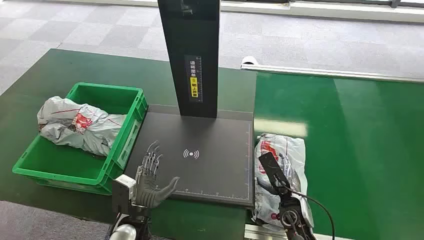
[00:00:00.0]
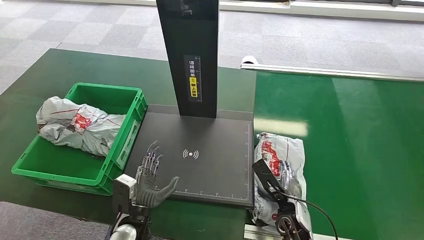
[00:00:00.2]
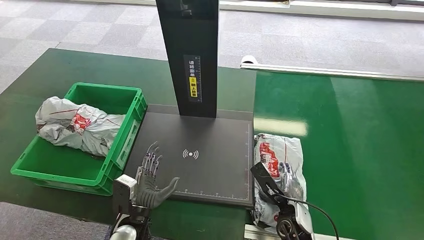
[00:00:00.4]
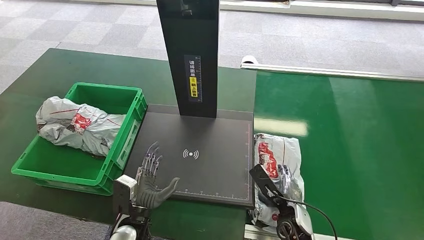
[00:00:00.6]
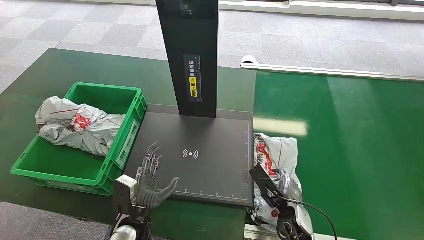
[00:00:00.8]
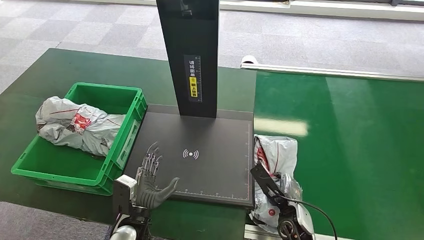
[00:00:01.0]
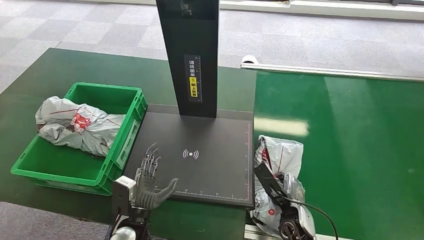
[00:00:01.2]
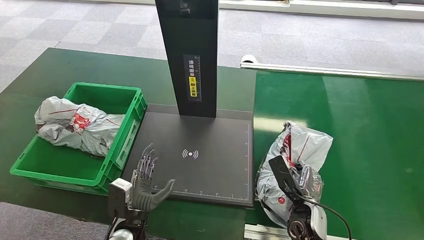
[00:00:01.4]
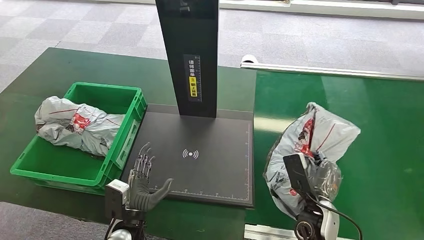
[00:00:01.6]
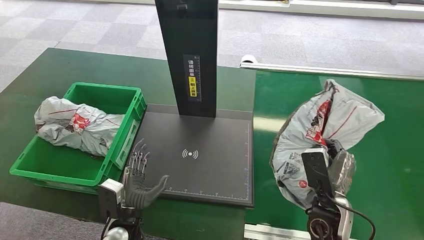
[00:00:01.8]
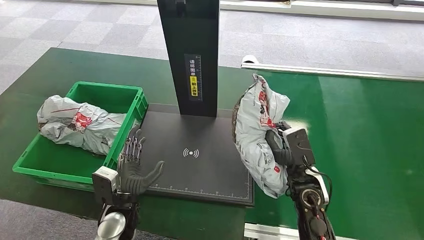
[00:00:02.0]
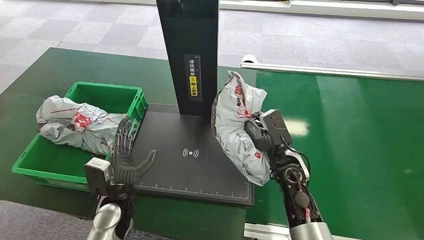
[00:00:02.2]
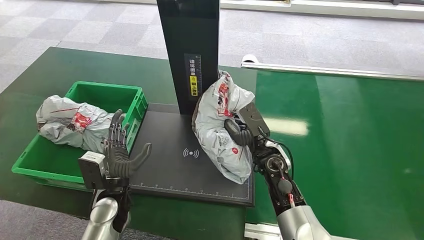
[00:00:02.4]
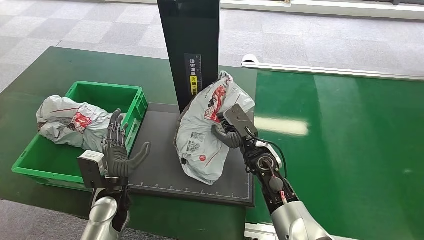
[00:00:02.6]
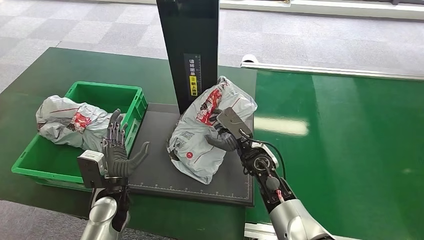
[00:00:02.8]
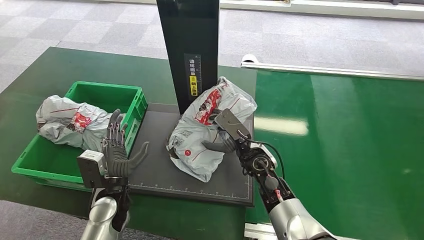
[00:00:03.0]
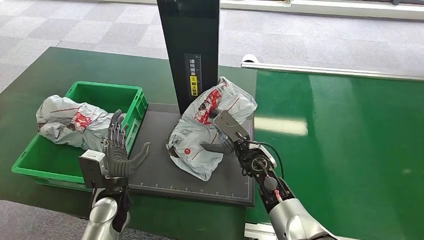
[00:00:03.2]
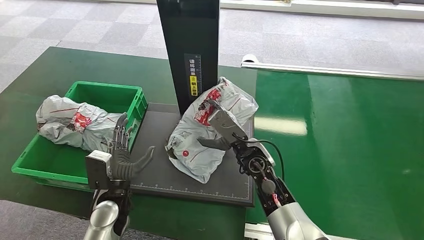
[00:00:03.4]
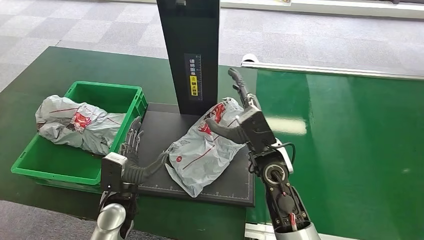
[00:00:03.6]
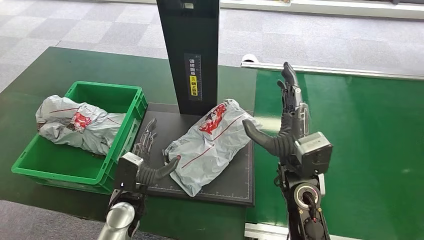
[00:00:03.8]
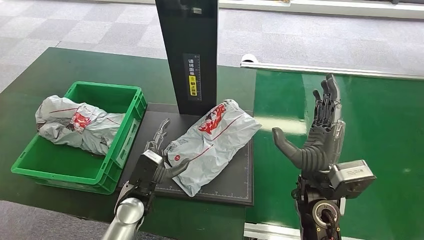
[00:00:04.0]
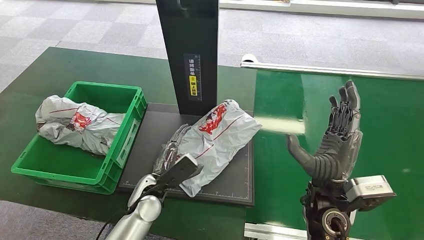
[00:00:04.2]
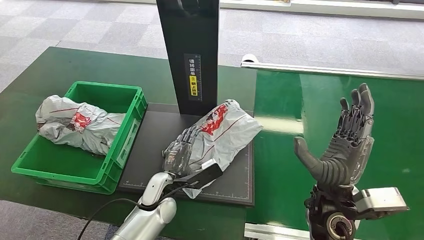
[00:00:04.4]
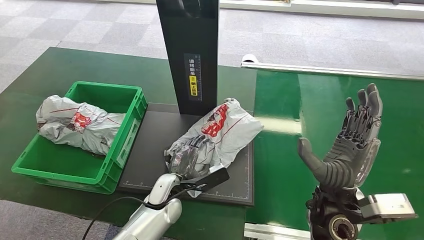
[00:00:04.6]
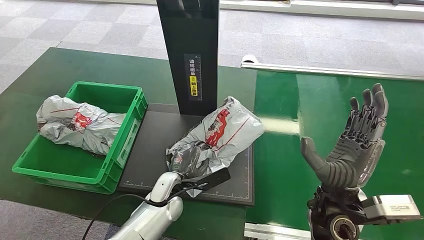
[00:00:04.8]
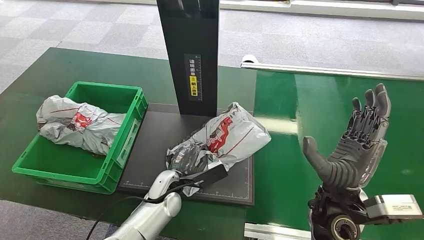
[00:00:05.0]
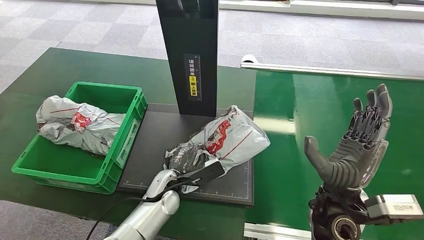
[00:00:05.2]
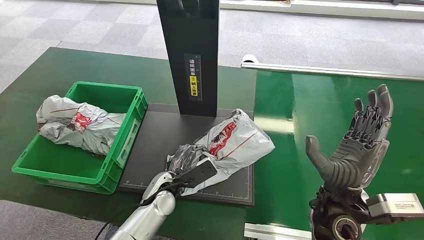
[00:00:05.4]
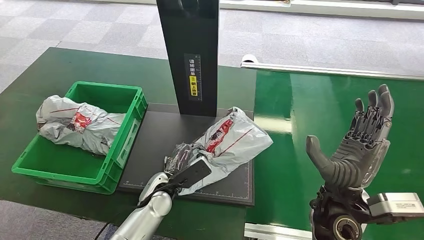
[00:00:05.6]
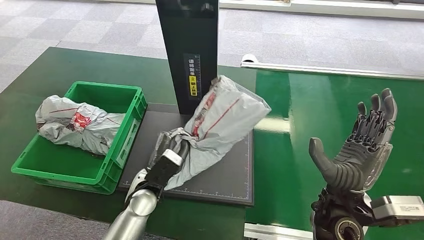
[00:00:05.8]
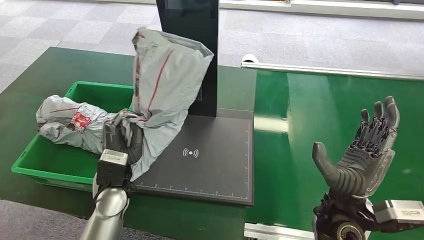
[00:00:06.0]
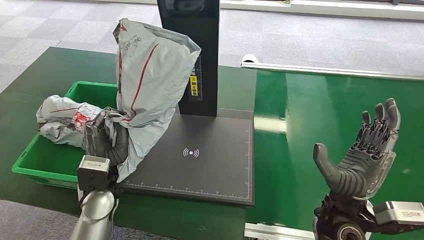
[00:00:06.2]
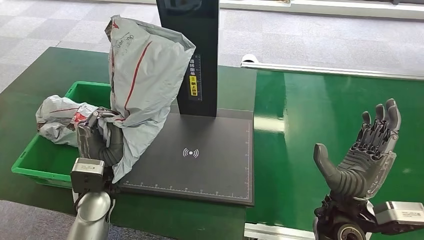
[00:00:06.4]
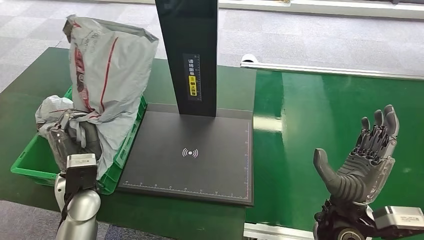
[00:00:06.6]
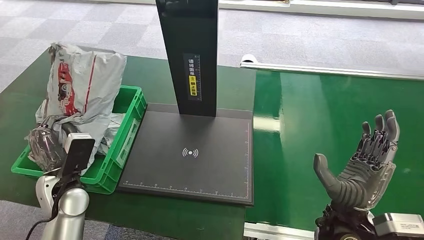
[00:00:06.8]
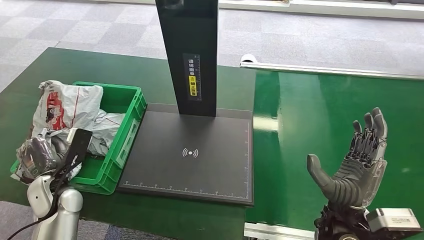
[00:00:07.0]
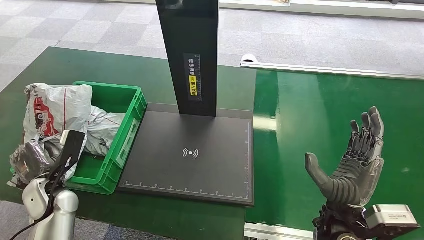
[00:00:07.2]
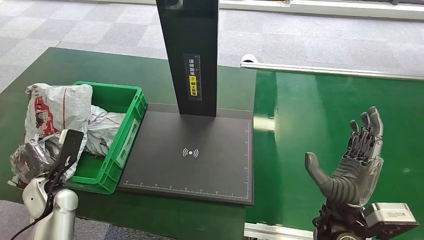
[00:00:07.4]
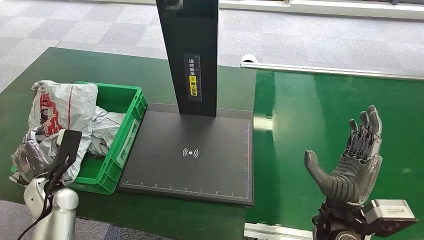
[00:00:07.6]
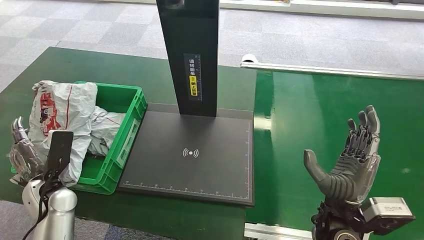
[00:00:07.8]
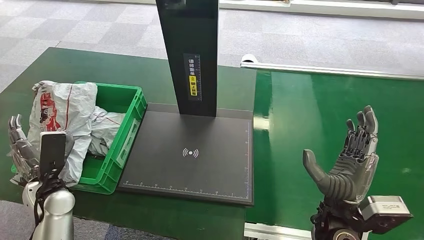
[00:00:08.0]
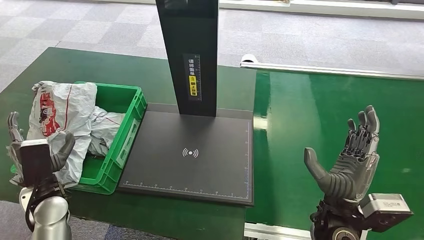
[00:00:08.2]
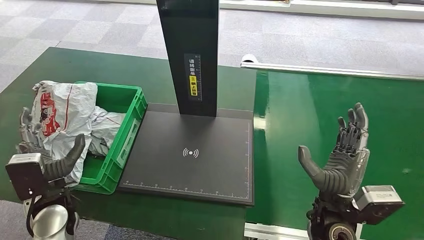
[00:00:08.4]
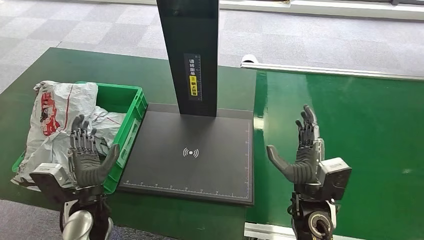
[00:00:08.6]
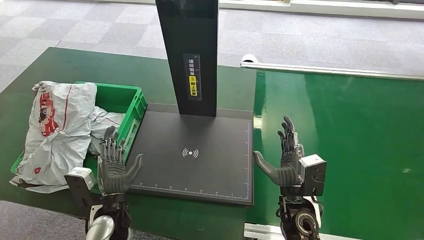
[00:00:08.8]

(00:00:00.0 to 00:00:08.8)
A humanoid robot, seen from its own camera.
Step, 00:00:00.0 - 00:00:01.8: Pick up the package from the conveyor belt.
Step, 00:00:02.0 - 00:00:03.6: Place the package onto the inbound machine.
Step, 00:00:03.8 - 00:00:06.0: Pick up the package from the inbound machine.
Step, 00:00:06.2 - 00:00:08.8: Place the package into the parcel locker.
00:00:07.4 - 00:00:08.8: The right hand goes some 10 cm downward and to the left. The left hand shifts about 15 cm to the right.
